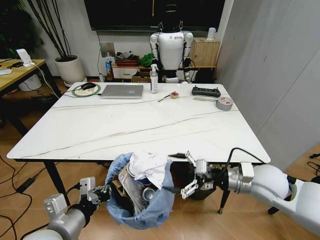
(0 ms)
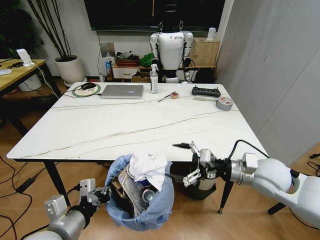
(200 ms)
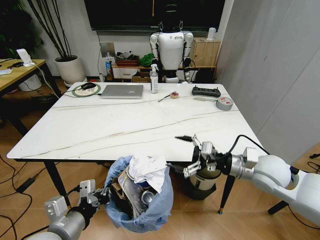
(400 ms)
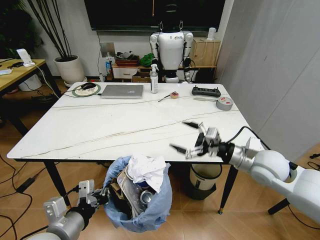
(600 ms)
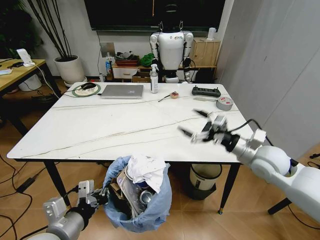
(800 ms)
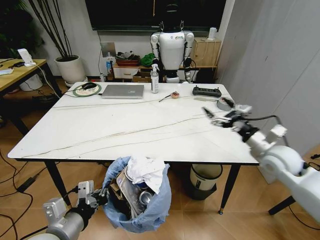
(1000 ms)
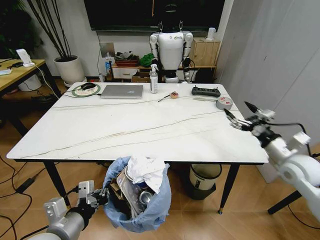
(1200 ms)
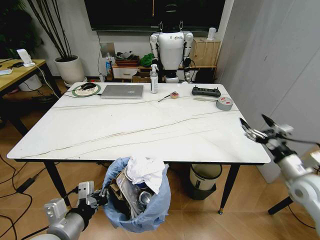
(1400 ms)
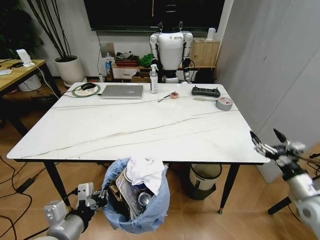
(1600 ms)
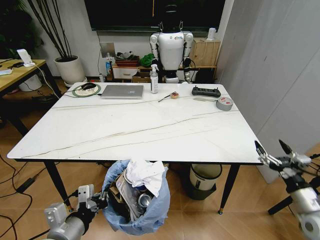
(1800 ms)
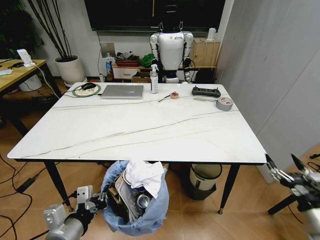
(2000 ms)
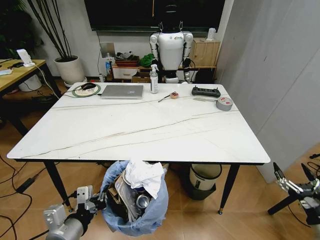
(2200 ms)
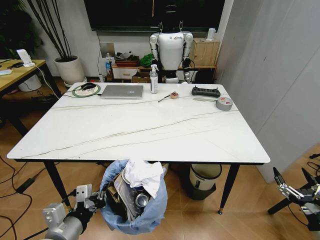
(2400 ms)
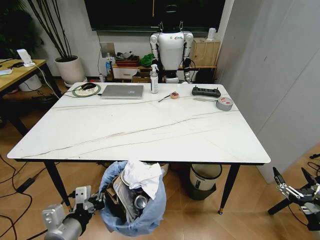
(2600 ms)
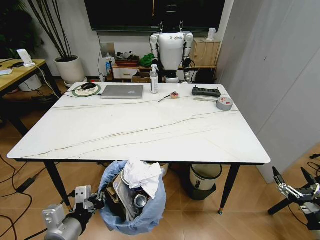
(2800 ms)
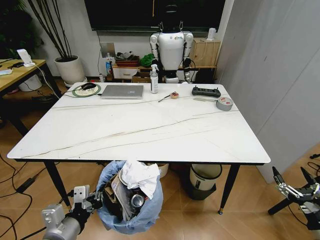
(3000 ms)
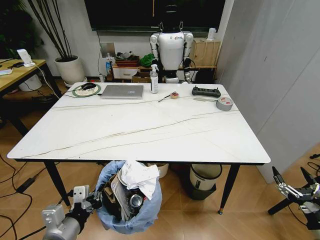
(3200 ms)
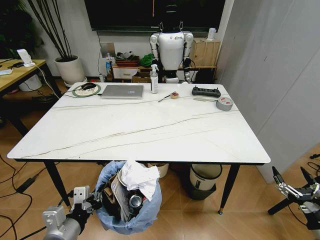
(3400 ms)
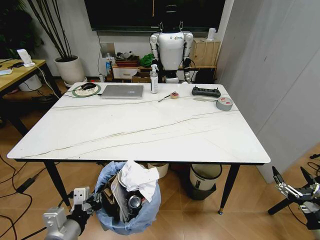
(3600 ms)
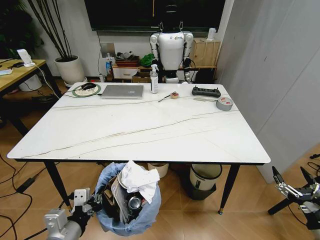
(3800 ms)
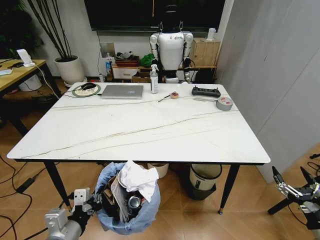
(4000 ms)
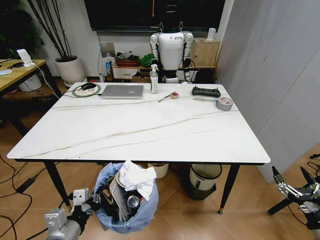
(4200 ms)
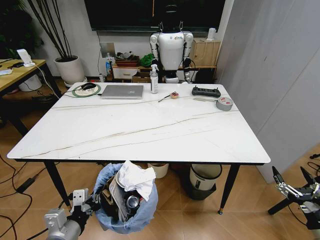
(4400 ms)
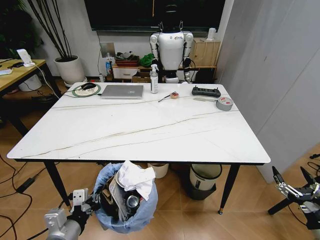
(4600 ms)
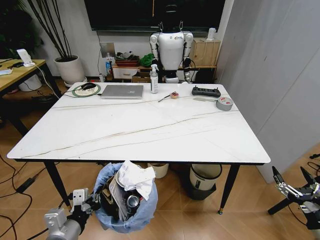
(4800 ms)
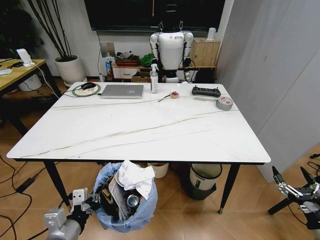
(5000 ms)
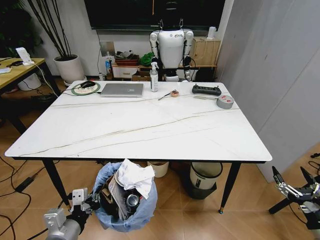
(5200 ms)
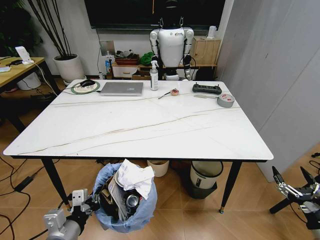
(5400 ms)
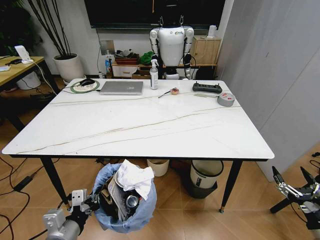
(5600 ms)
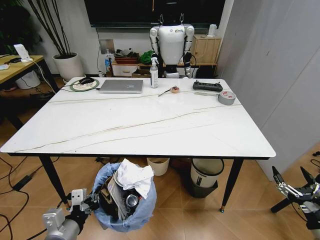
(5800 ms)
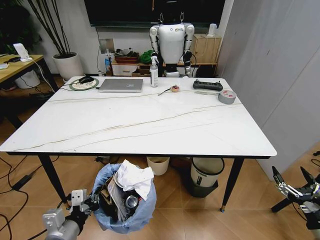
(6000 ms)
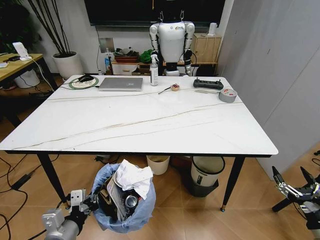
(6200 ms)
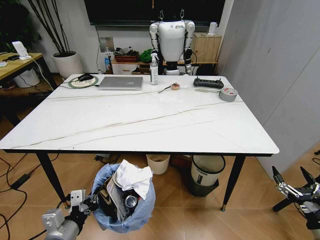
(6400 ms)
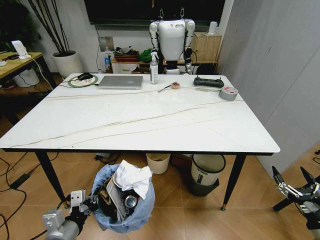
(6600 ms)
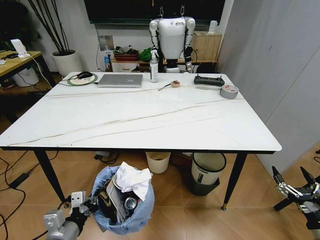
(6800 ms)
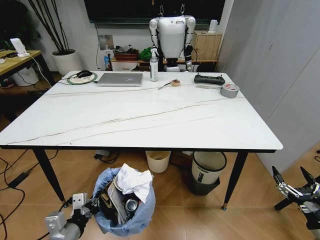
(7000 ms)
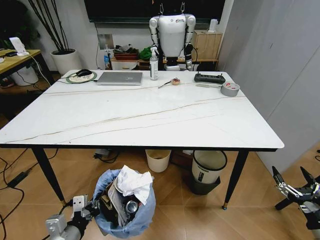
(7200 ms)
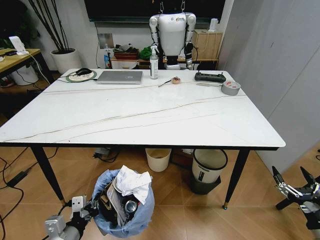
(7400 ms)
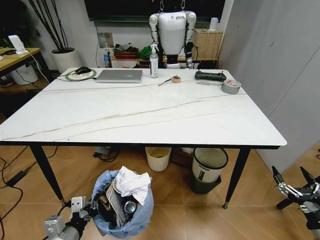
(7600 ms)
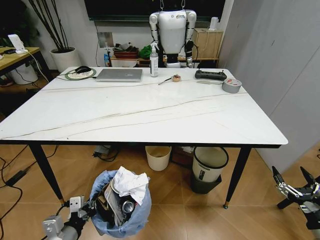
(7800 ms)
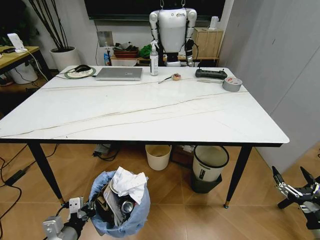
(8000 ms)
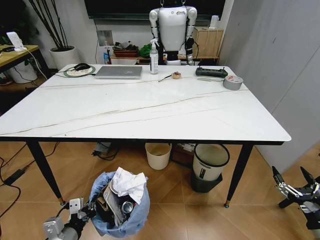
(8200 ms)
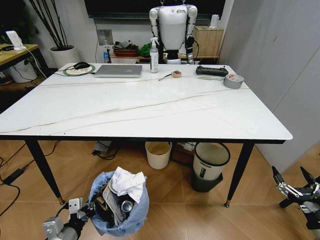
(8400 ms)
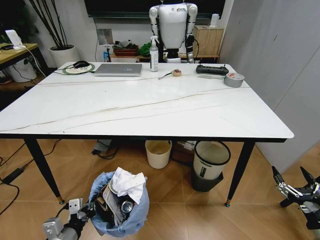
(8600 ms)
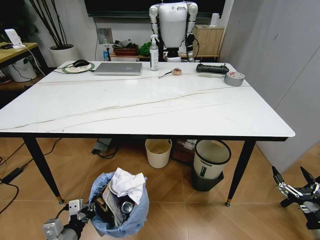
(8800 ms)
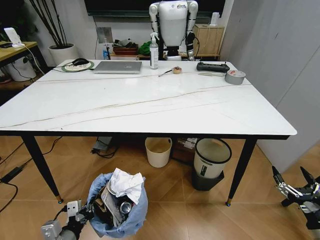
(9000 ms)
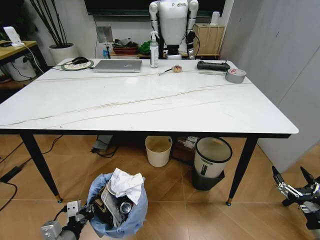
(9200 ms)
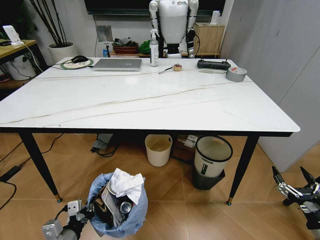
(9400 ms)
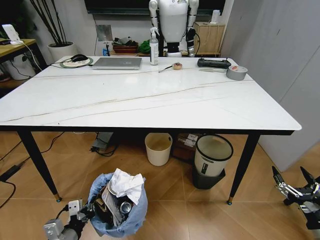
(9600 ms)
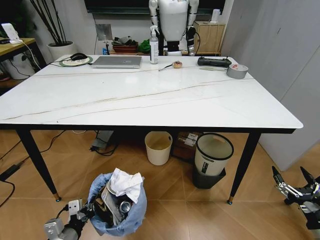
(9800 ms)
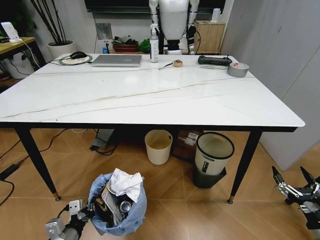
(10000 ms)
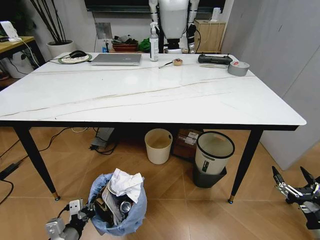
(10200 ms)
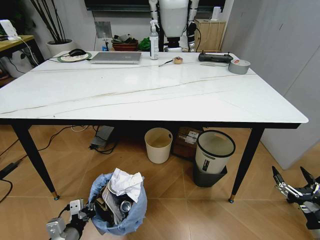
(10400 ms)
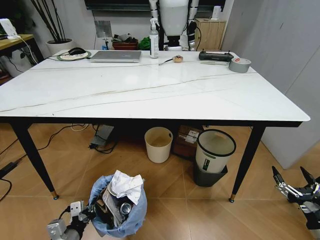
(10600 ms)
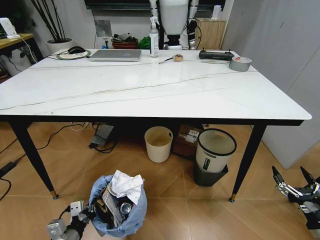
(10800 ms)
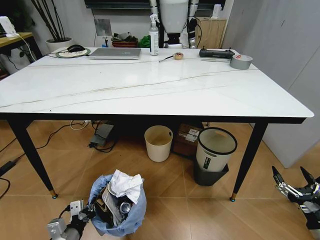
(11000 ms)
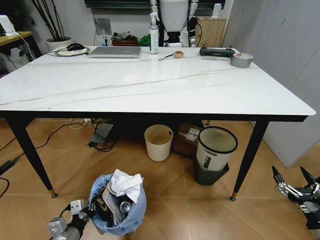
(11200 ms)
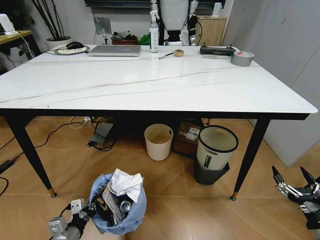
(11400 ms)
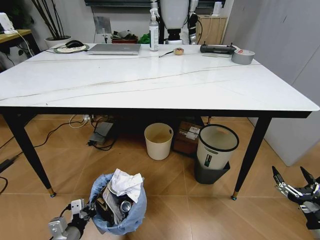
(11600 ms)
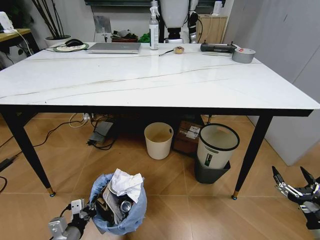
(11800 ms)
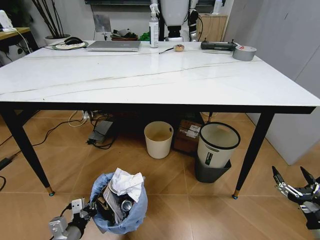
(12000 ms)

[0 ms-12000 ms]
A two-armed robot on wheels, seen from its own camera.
Task of the whole recording: Pick up the trash bin and place the trash from the table into it.
0 ms to 1600 ms: The right gripper is displaced to the right by about 15 cm.
1600 ms to 3000 ms: The right gripper heads backward and downward, covering approximately 15 cm.
3000 ms to 4400 ms: The grippers make only small movements.

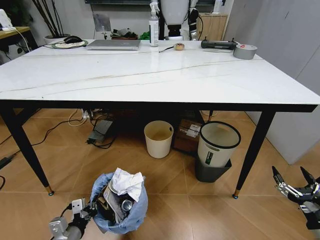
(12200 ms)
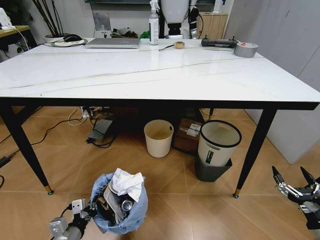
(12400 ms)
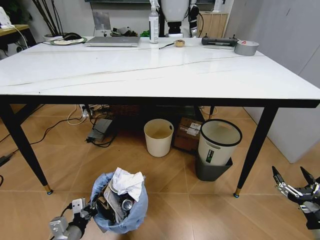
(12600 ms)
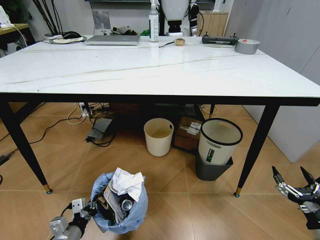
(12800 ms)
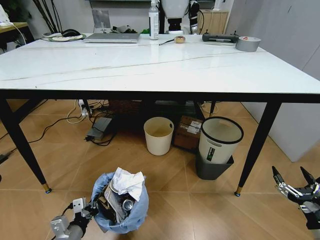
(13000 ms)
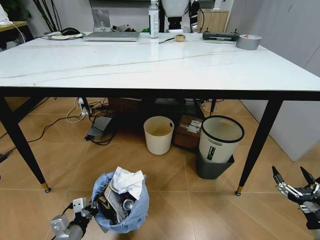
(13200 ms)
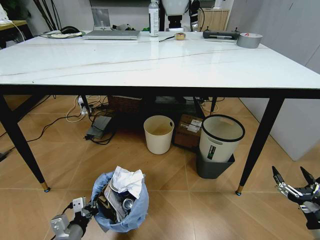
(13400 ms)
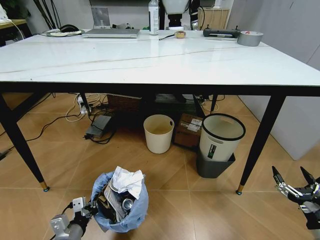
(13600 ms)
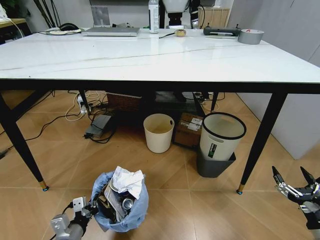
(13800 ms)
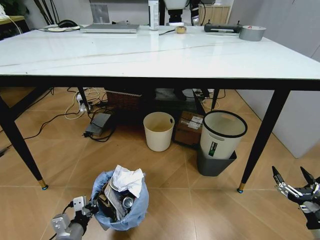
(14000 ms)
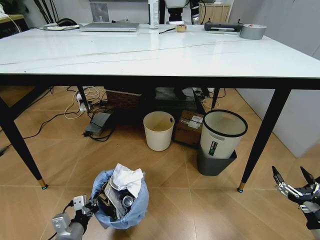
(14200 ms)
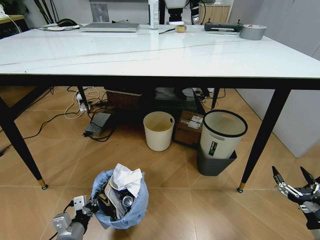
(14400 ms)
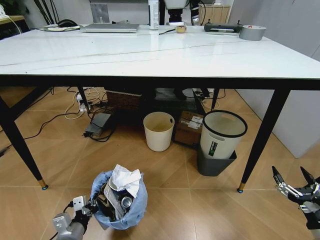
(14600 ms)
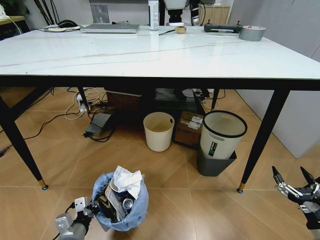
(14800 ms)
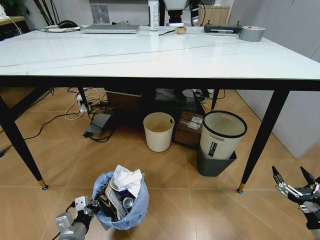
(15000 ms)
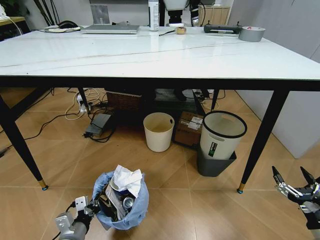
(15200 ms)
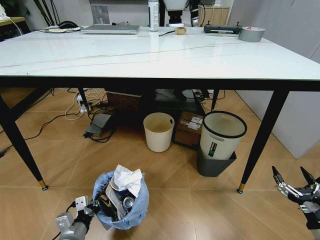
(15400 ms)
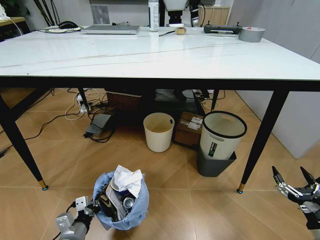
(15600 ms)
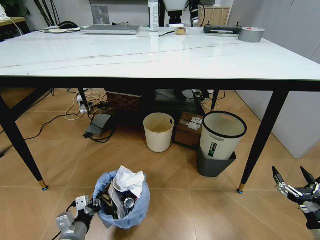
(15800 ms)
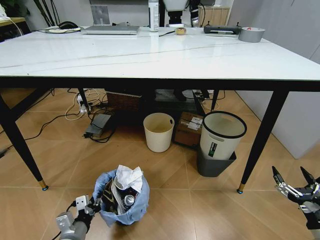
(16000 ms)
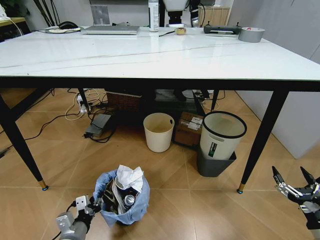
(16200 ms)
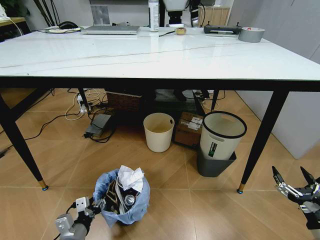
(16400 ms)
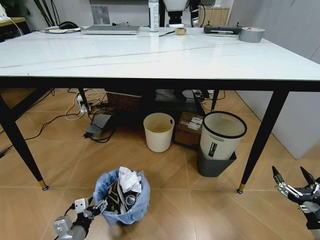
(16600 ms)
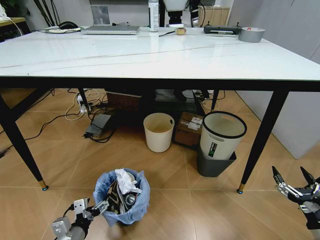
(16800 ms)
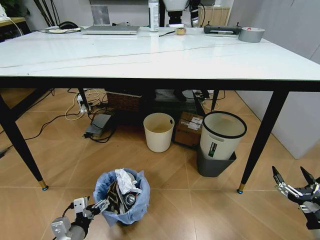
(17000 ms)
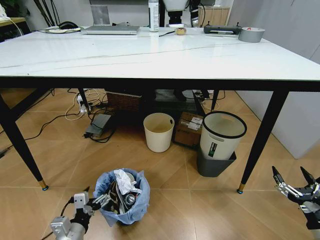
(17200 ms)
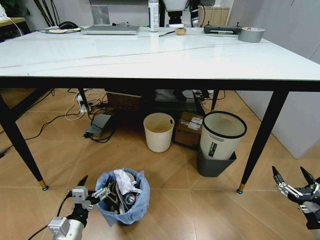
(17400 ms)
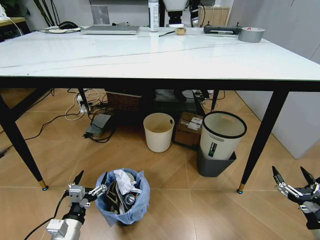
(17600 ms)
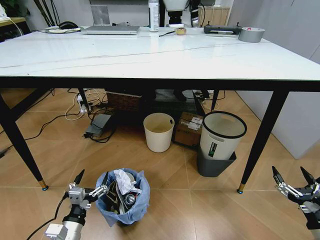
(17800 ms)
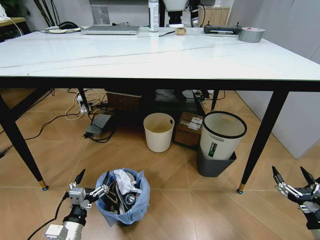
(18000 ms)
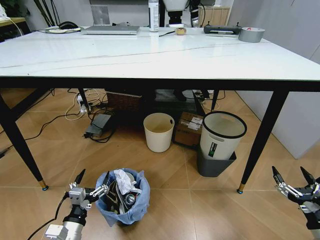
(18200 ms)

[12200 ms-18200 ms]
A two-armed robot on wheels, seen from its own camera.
Task of the whole recording: Pick up the trash bin and place the trash from the table into it.
13800 ms to 15200 ms: Neither gripper changes place.
15200 ms to 16600 ms: The left gripper opens.

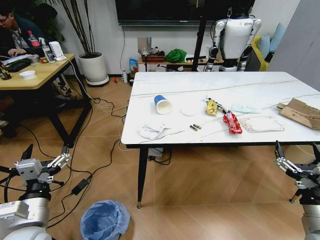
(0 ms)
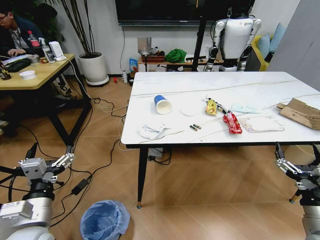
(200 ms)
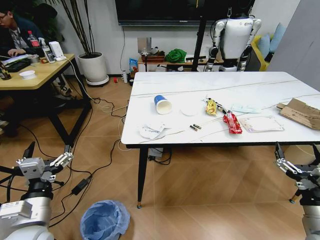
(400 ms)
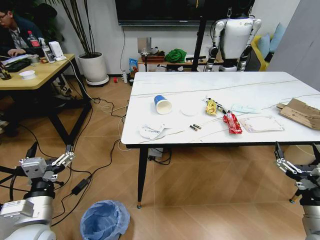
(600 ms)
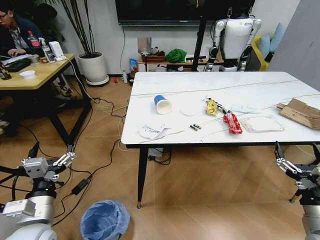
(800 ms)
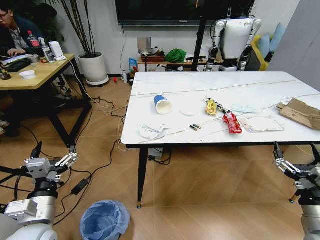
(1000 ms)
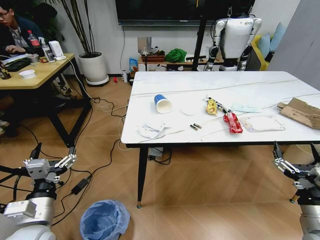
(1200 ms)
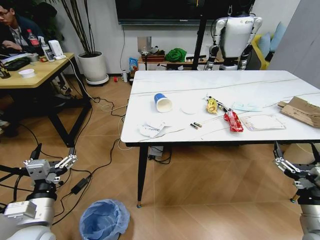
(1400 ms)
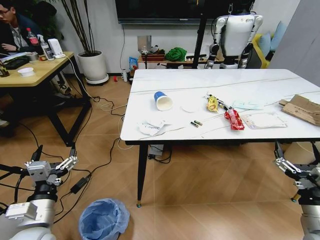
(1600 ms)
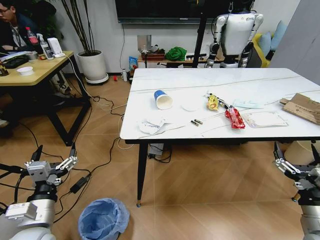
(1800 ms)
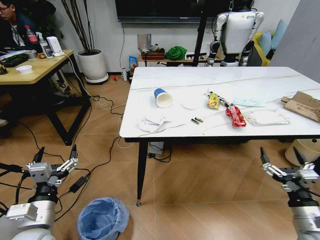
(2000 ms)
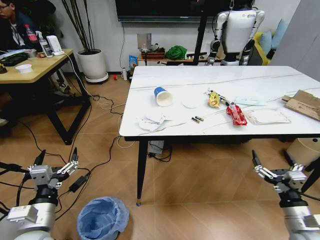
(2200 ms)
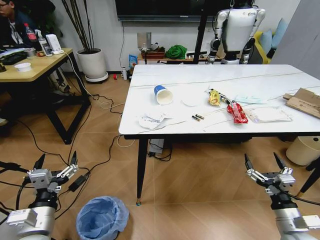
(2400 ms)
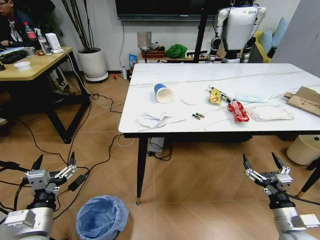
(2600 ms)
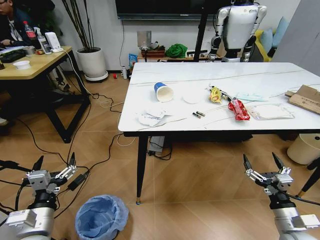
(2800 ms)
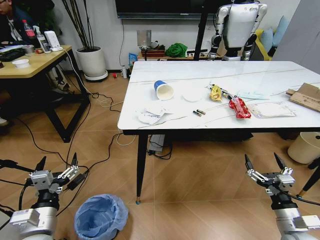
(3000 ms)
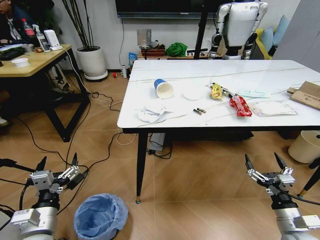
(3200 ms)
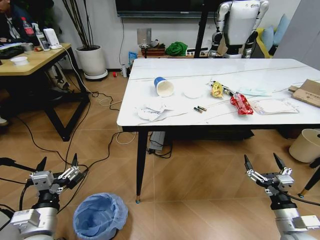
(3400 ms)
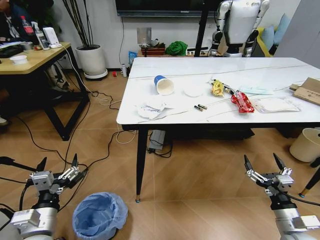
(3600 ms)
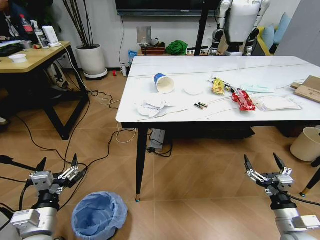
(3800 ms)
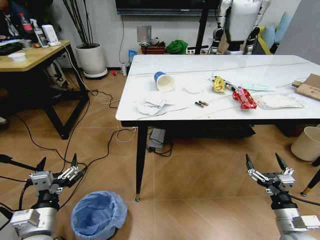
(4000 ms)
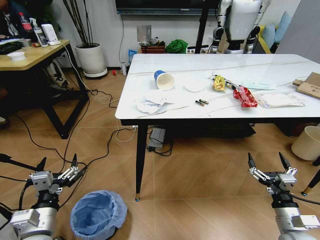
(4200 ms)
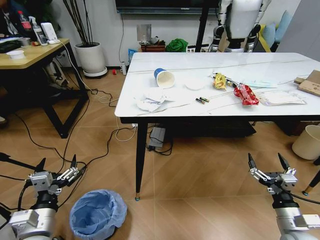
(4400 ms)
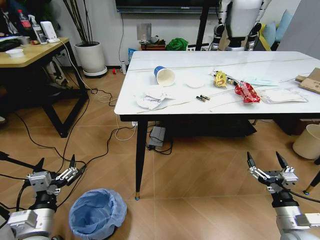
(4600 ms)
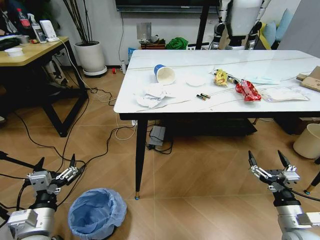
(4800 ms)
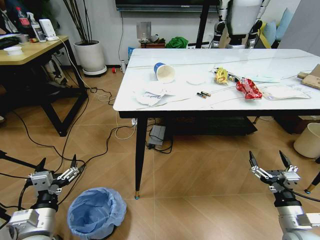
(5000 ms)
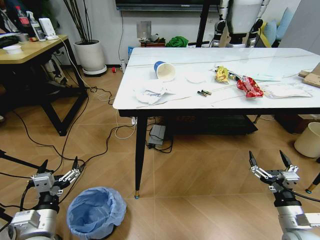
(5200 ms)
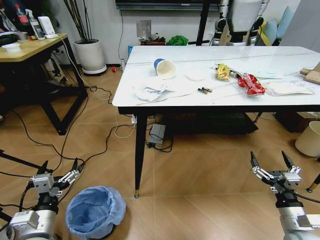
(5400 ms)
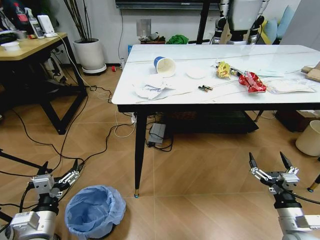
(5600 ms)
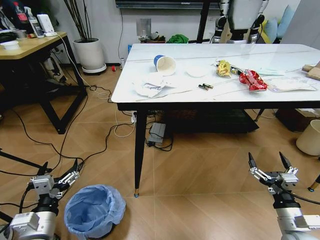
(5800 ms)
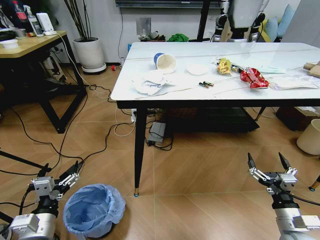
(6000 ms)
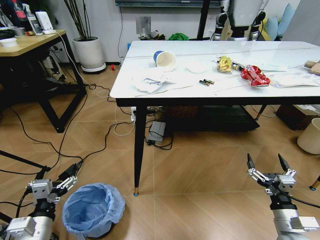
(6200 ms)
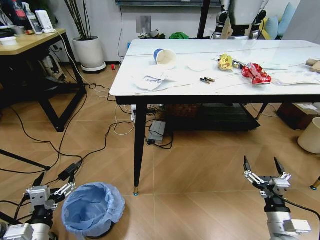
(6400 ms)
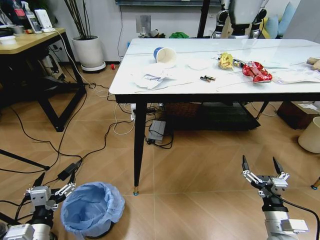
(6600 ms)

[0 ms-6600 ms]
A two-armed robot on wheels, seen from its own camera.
Task of the whole recording: Pick up the trash bin and place the trash from the table into it.
1600 ms to 3200 ms: The right gripper shifts about 5 cm downward.
